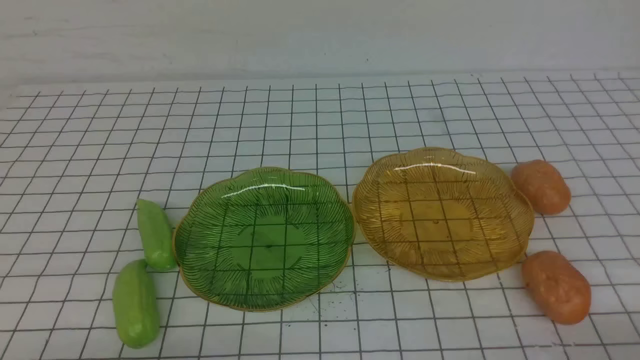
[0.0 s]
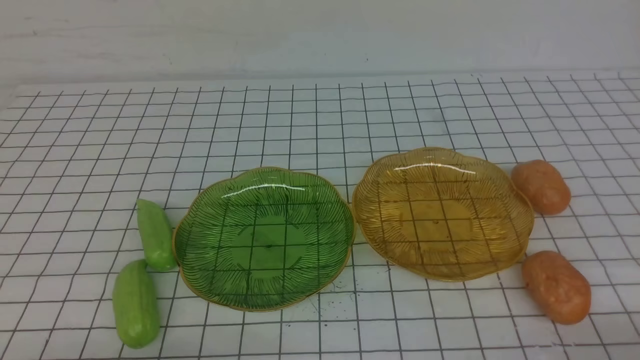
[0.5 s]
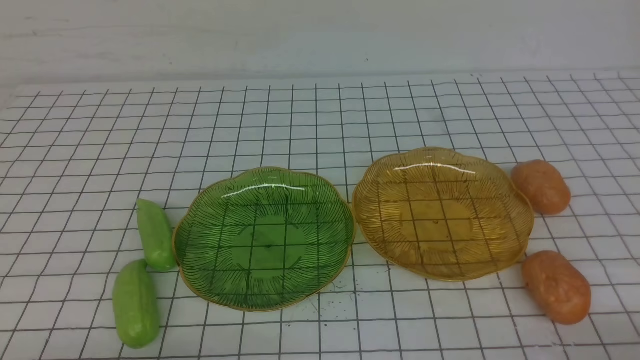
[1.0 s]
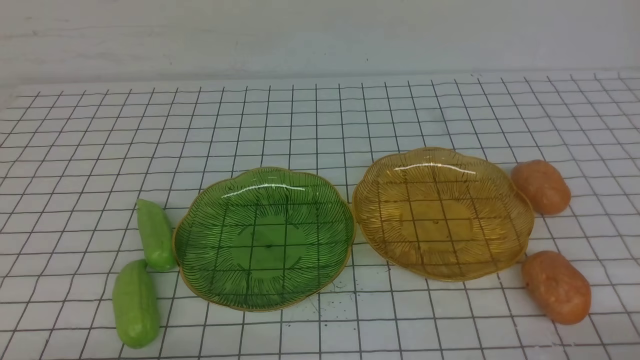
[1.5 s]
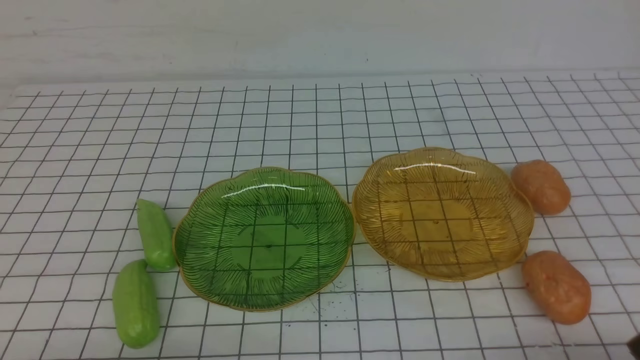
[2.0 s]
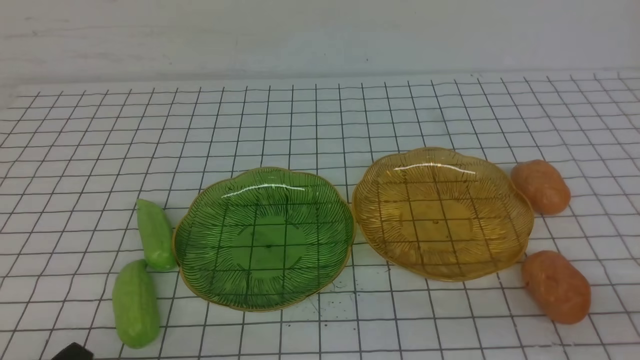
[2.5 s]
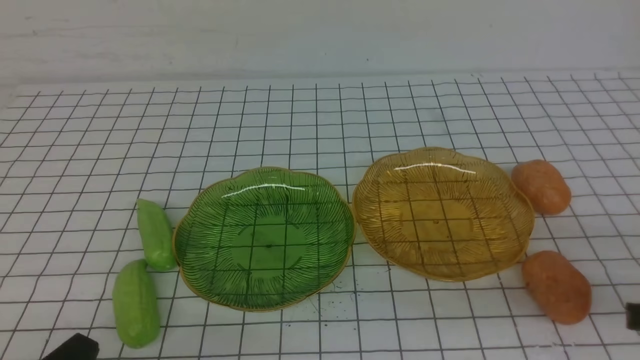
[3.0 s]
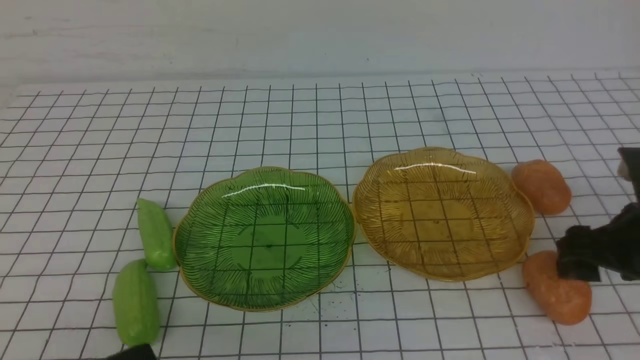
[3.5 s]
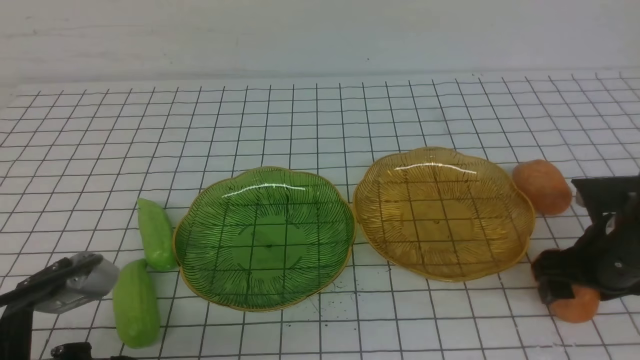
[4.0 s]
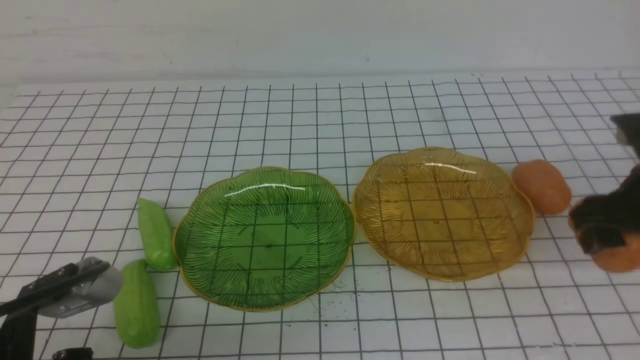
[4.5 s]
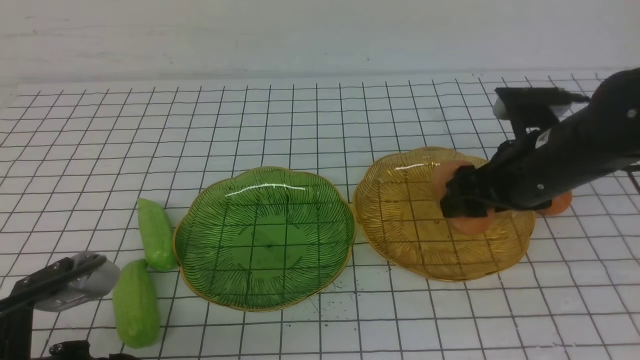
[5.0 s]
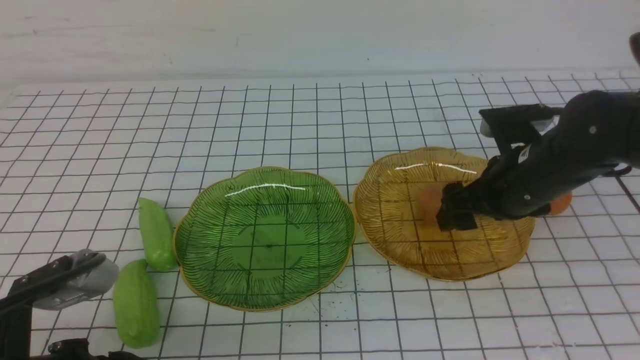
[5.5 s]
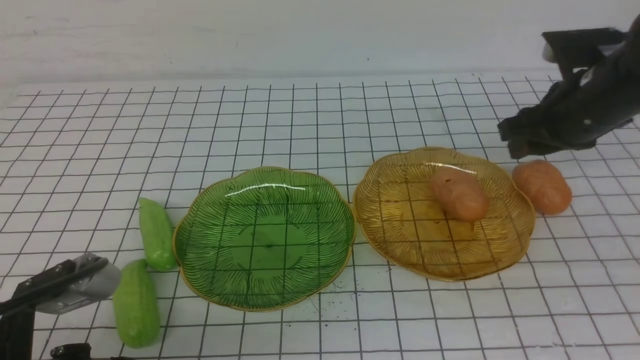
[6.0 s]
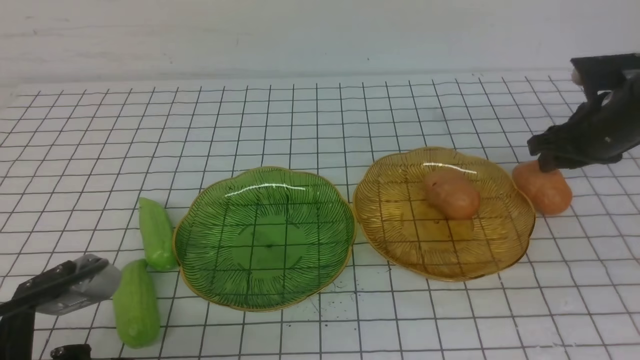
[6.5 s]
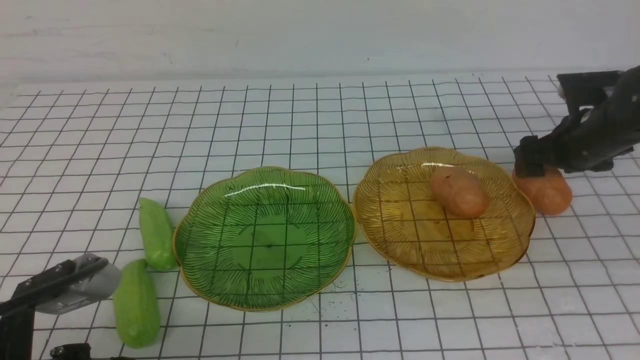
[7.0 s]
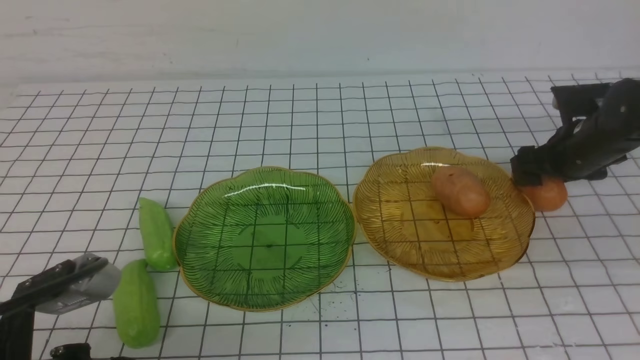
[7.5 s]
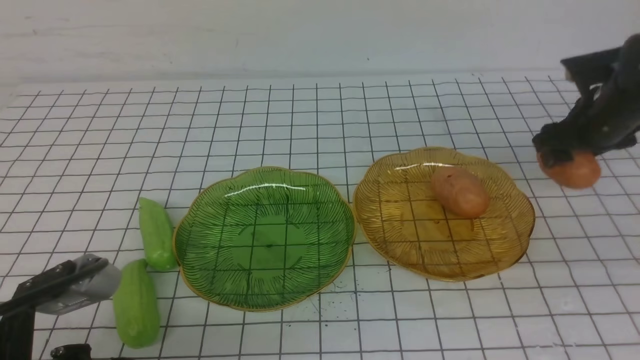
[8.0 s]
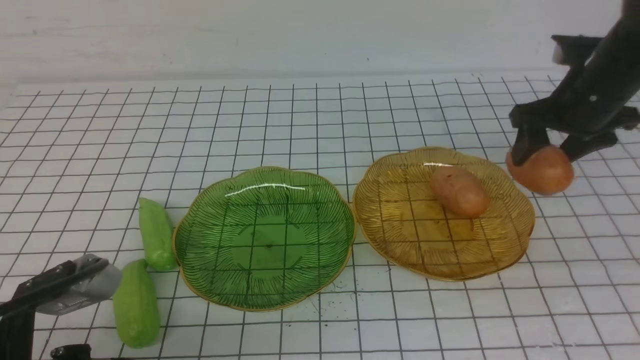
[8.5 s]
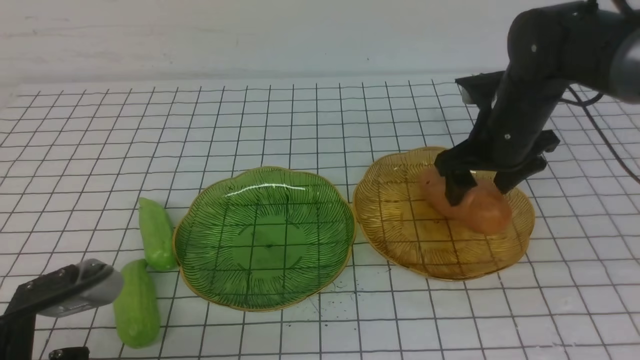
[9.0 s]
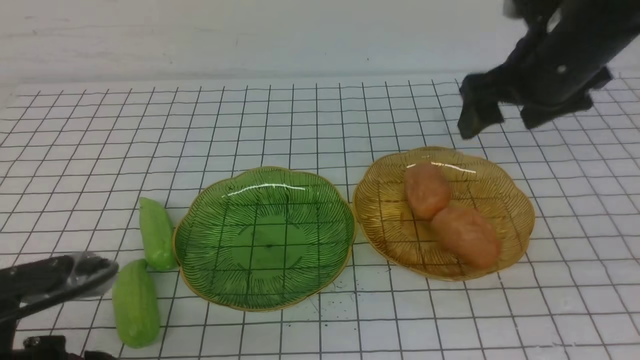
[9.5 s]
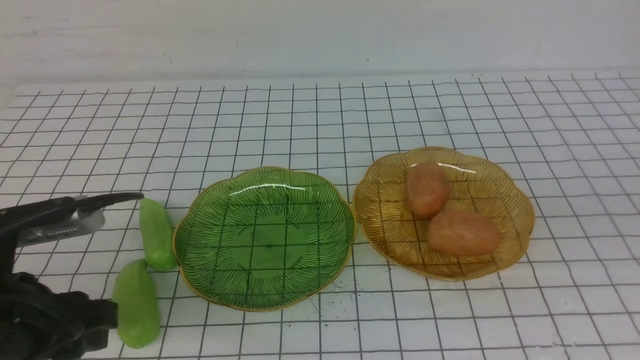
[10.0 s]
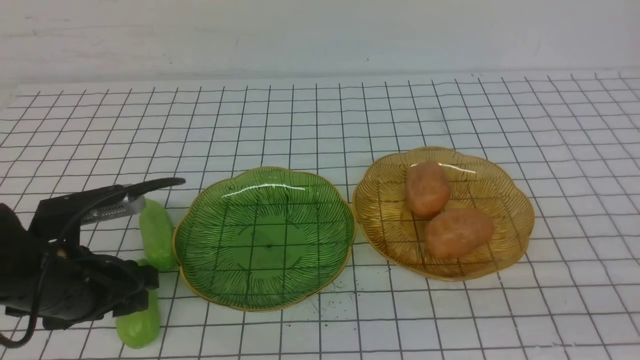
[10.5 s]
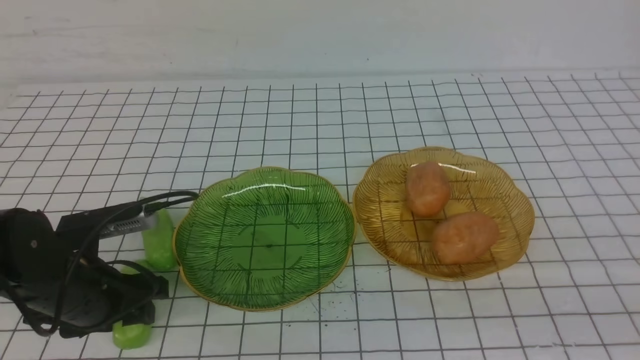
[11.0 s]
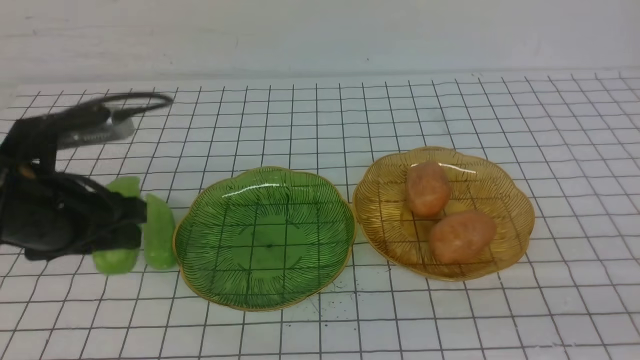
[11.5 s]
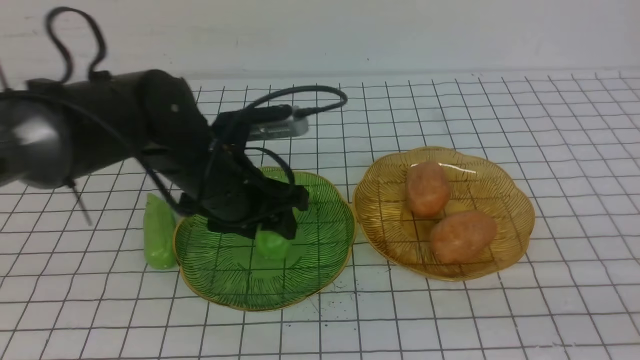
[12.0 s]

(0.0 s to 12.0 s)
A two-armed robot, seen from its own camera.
Step, 0.0 s - 5.5 s: Grab a potato with your right arm and put it on the right plate.
Step, 6.0 s - 9.0 s: Grab a potato with your right arm and put it on the right plate.
2.0 s - 4.0 s: The right gripper goes about 20 cm forward, and opens, while the left gripper heads upward and to the right, covering roughly 10 cm.
4.0 s - 6.0 s: The right gripper is displaced forward and upward by approximately 15 cm, and closes.
6.0 s - 8.0 s: The right gripper moves to the right, roughly 5 cm.
8.0 s - 10.0 s: The left gripper goes some 5 cm forward, and opens, while the right gripper travels backward and upward by roughly 35 cm, and closes its fingers.
10.0 s - 12.0 s: The right gripper travels backward and downward by roughly 10 cm; the left gripper goes about 20 cm forward and to the right.

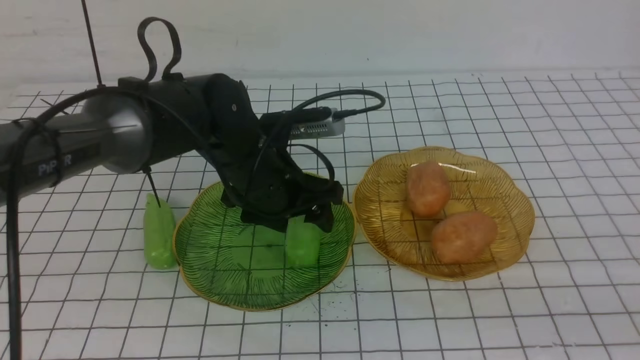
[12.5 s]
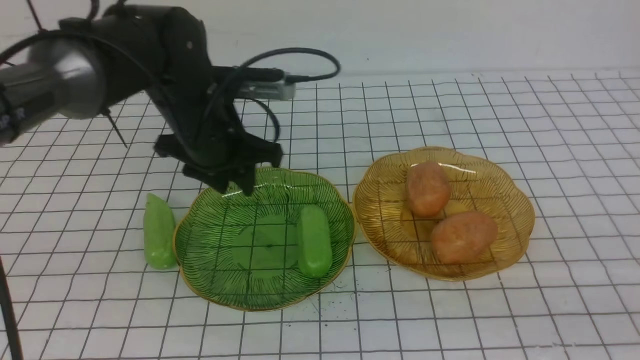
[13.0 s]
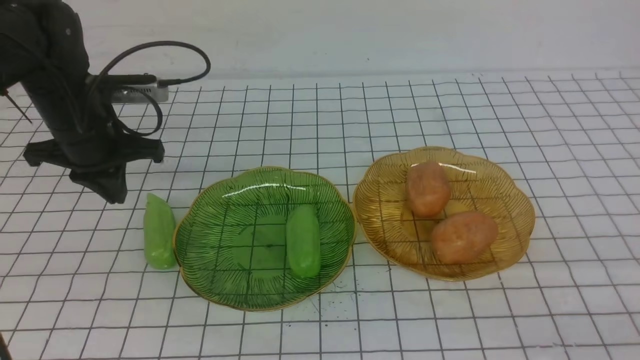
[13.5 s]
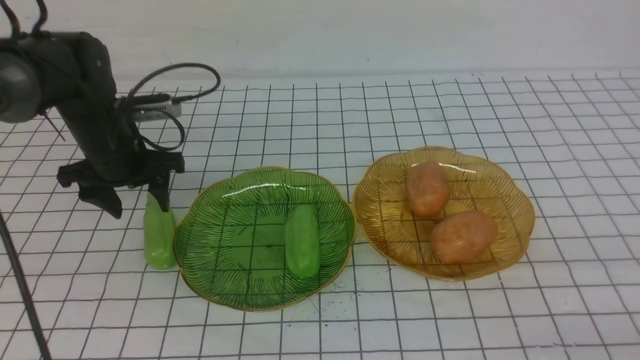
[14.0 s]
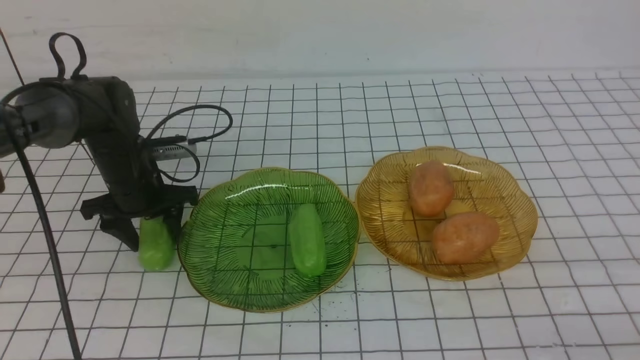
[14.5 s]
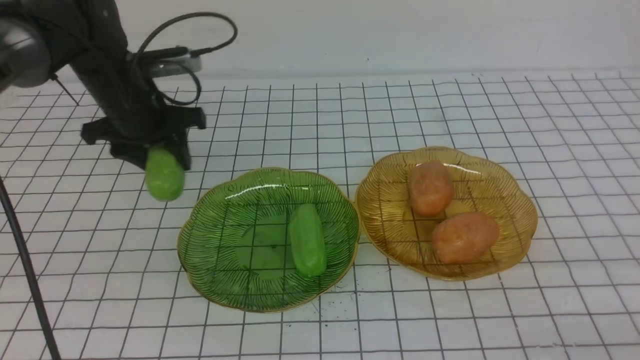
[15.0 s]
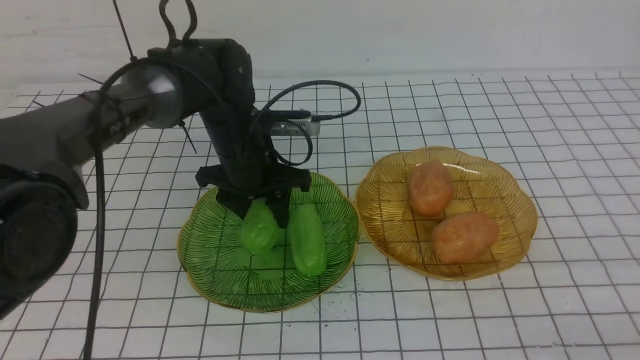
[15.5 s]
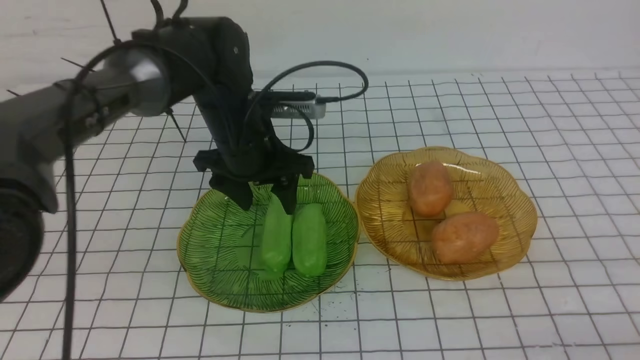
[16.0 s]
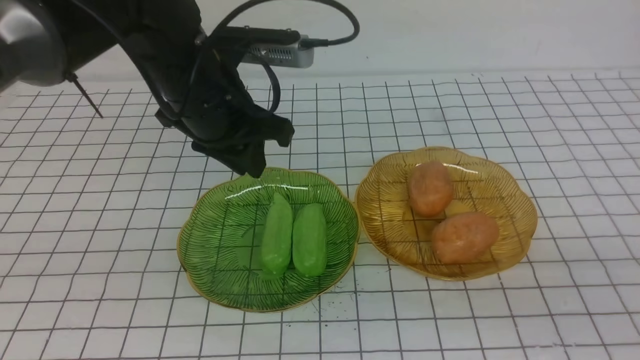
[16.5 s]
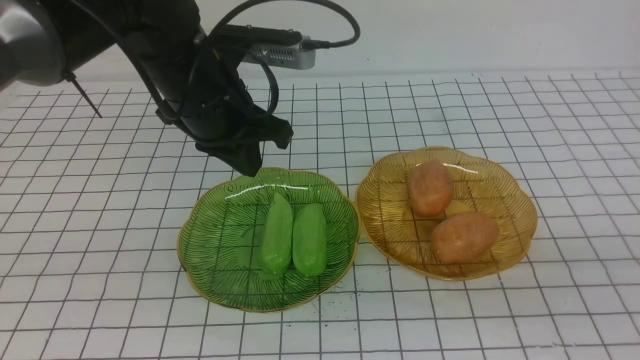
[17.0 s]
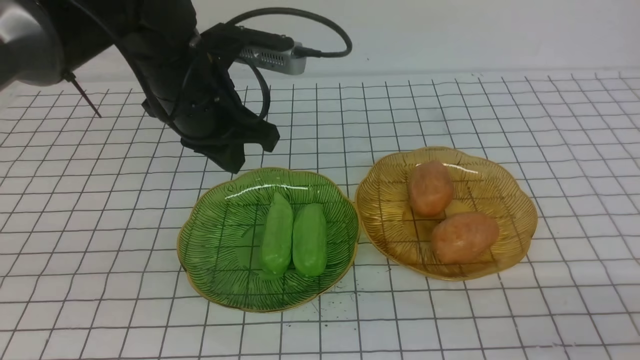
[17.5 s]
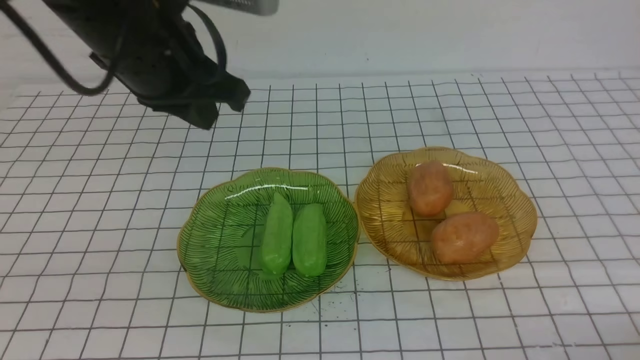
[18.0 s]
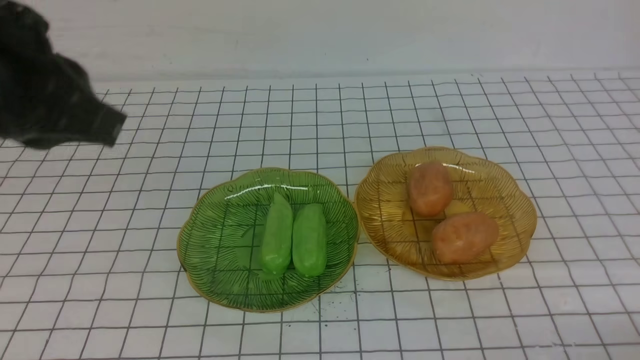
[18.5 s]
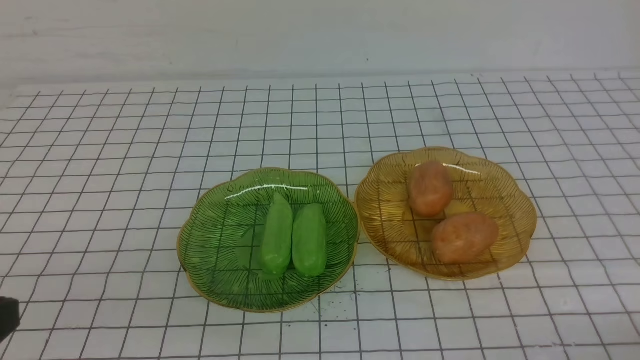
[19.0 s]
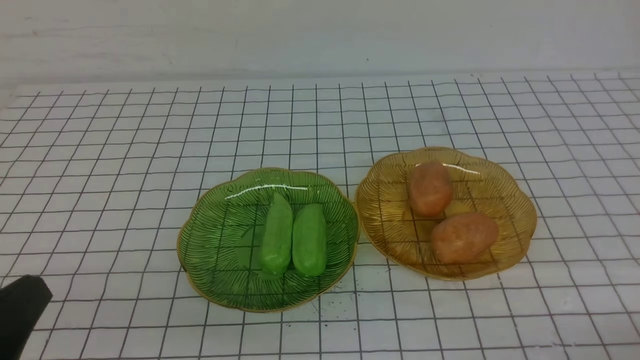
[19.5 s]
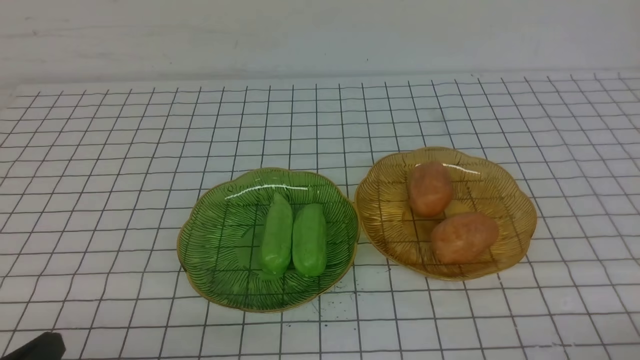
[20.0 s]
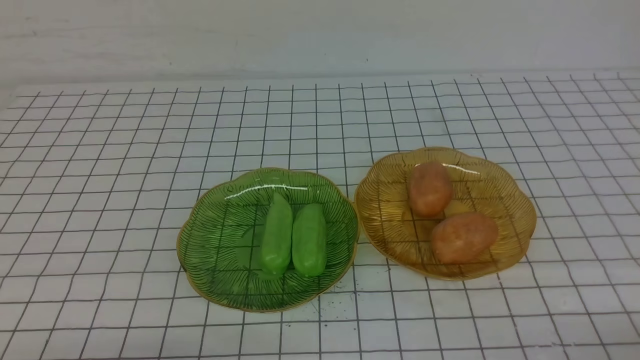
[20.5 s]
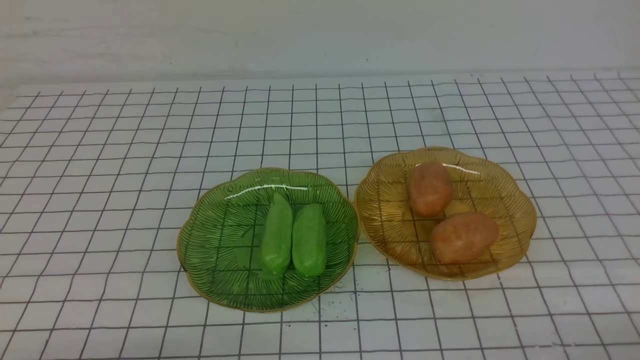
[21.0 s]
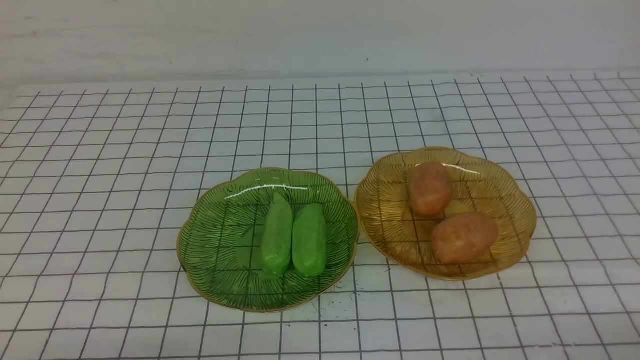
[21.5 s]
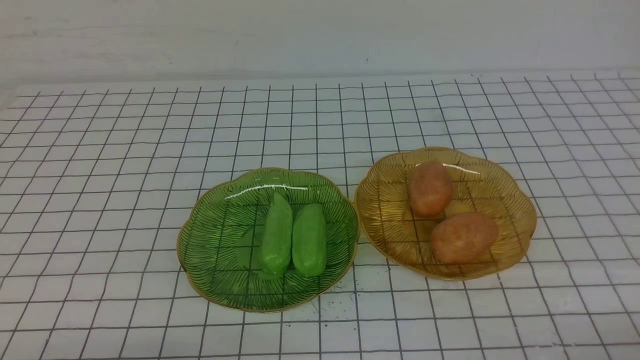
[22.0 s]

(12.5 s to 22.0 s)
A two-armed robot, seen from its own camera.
Step, 13.0 s - 15.5 s: use the left arm to grab a chayote and put it into the left plate.
12.5 s - 14.5 s: The left gripper is displaced to the left and forward by about 20 cm, and closes, then opens again.
14.5 s - 16.5 s: The left gripper goes approximately 20 cm upward, to the right and backward, and closes. Meanwhile the right gripper ends up some 5 cm from where it was.
16.5 s - 18.0 s: The right gripper heads downward, covering some 10 cm; the left gripper goes some 10 cm upward.
18.0 s - 20.0 s: The left gripper heads backward, downward and to the left, covering approximately 35 cm.
